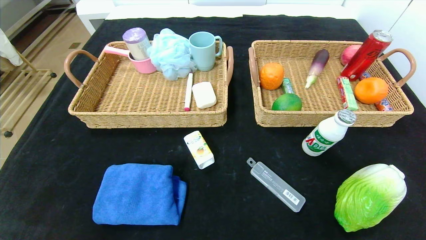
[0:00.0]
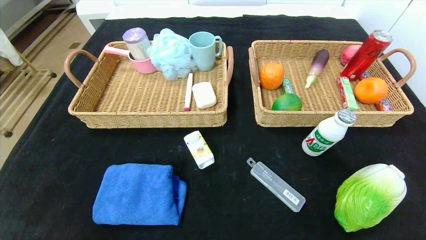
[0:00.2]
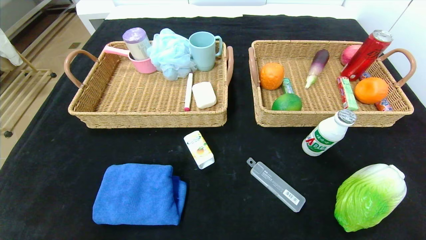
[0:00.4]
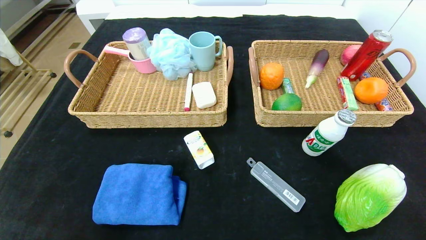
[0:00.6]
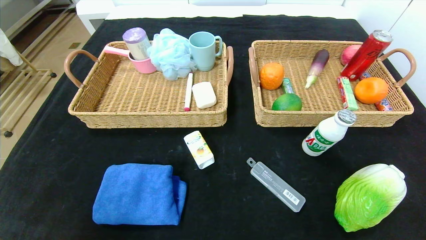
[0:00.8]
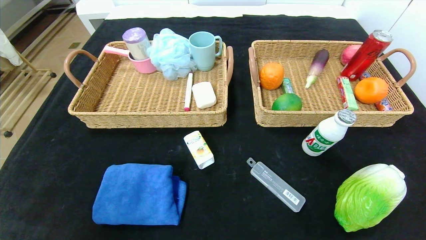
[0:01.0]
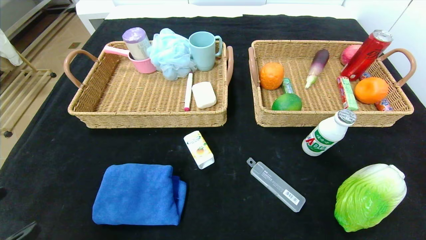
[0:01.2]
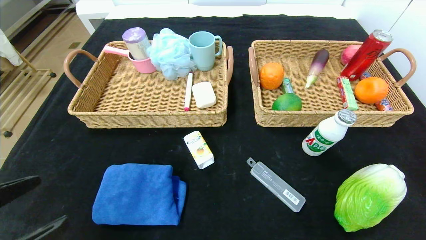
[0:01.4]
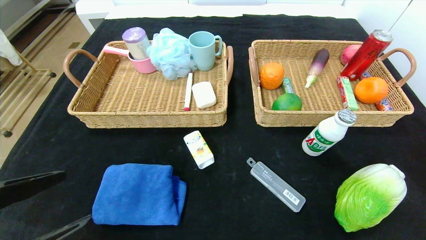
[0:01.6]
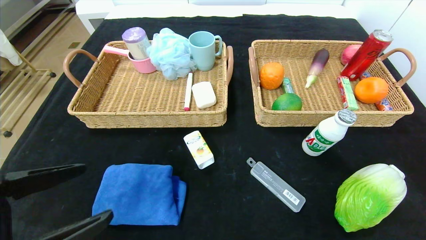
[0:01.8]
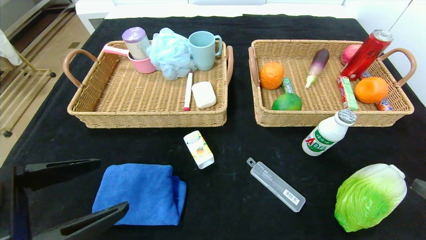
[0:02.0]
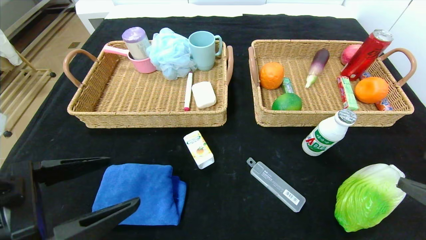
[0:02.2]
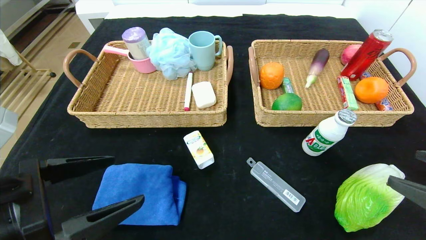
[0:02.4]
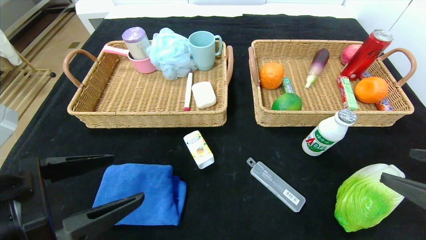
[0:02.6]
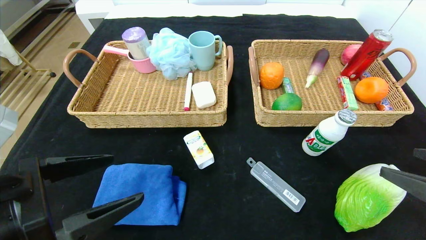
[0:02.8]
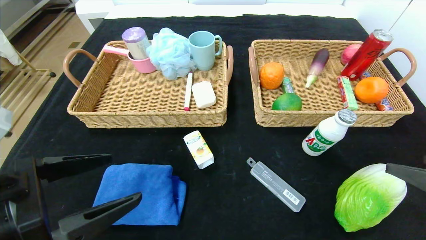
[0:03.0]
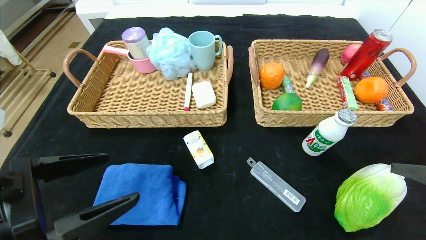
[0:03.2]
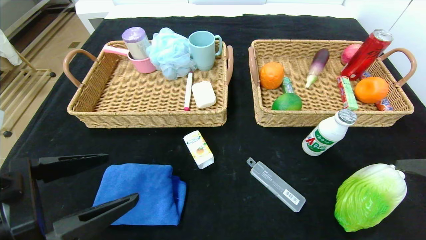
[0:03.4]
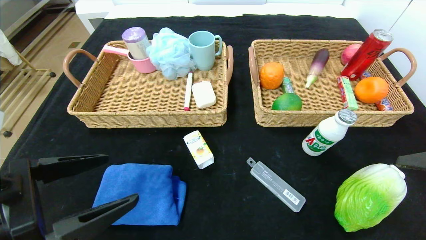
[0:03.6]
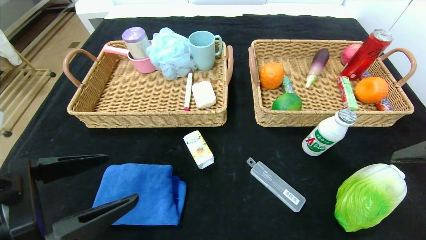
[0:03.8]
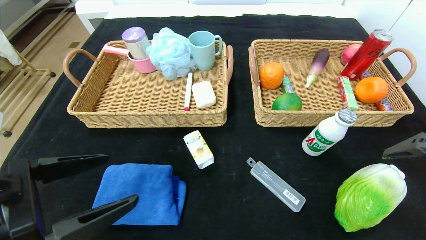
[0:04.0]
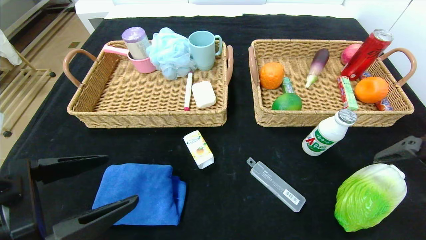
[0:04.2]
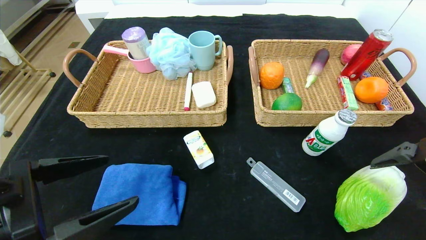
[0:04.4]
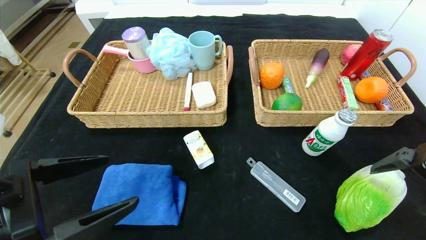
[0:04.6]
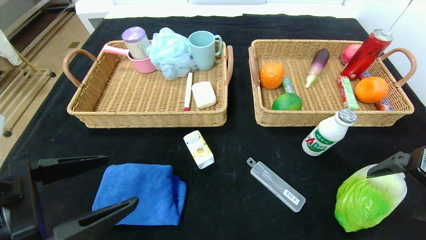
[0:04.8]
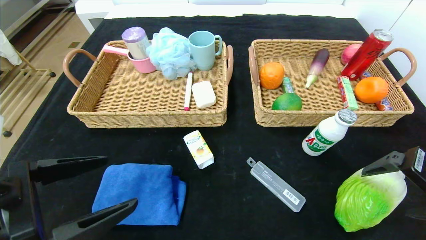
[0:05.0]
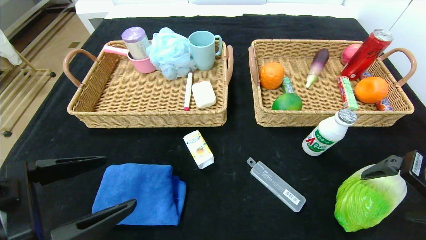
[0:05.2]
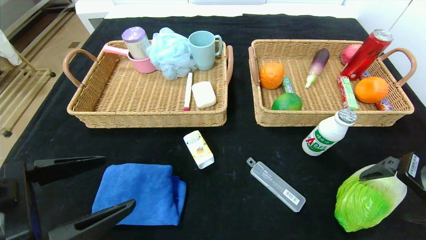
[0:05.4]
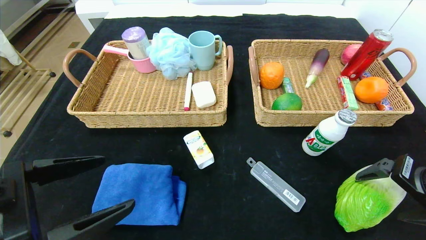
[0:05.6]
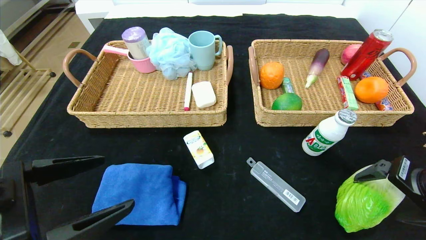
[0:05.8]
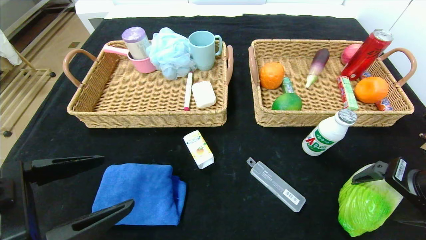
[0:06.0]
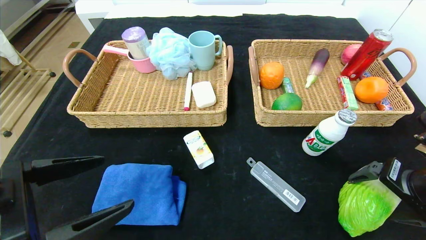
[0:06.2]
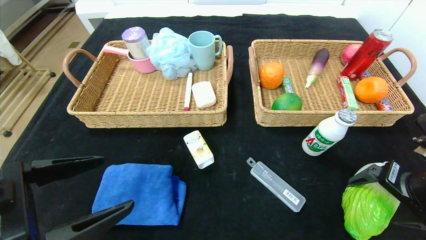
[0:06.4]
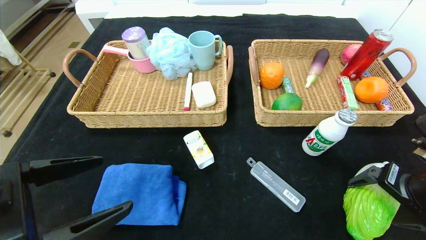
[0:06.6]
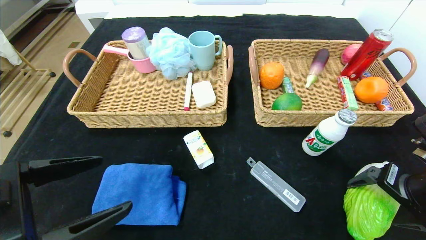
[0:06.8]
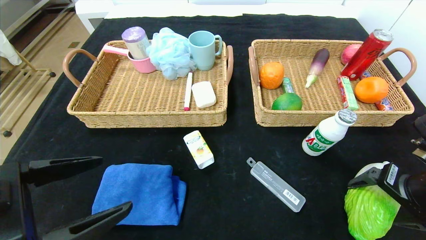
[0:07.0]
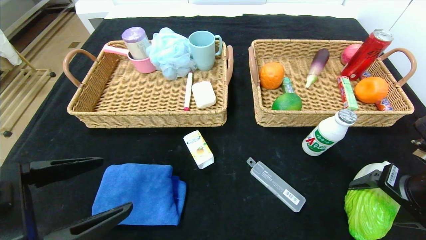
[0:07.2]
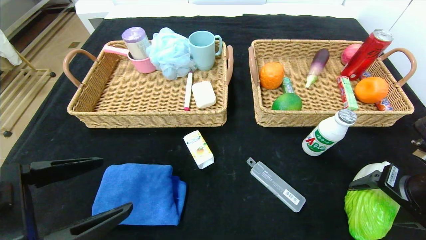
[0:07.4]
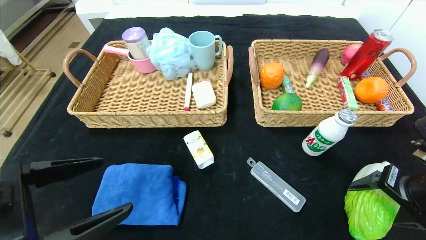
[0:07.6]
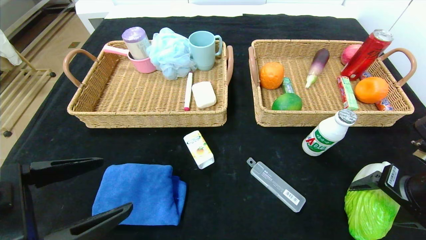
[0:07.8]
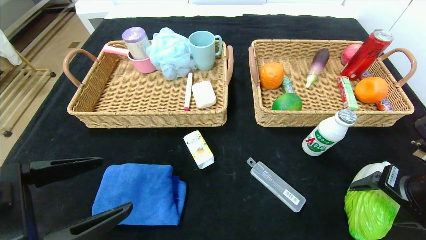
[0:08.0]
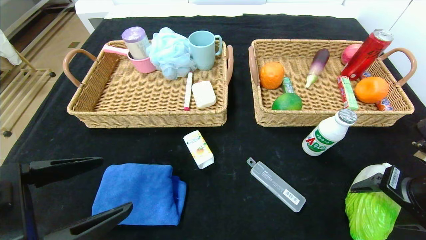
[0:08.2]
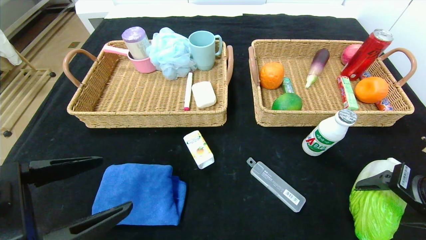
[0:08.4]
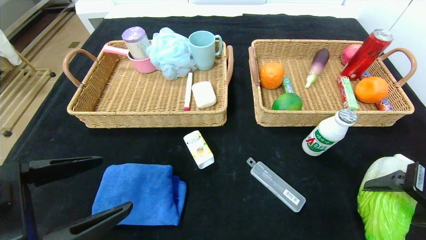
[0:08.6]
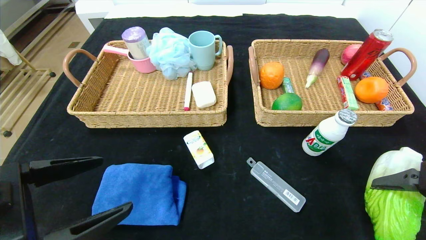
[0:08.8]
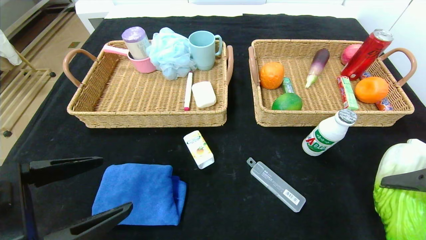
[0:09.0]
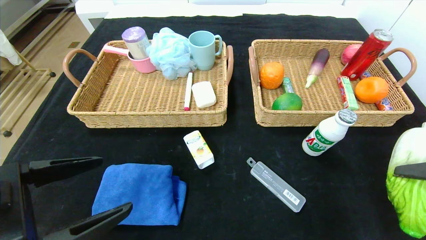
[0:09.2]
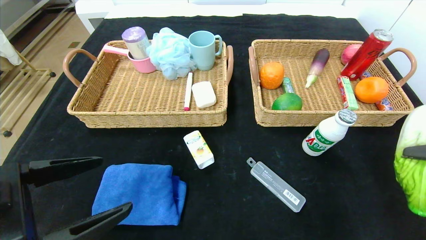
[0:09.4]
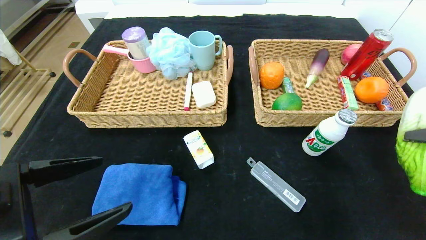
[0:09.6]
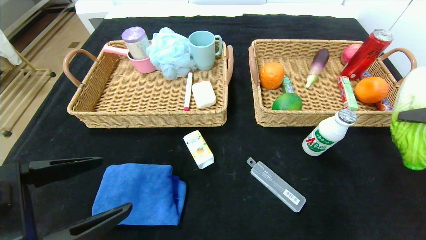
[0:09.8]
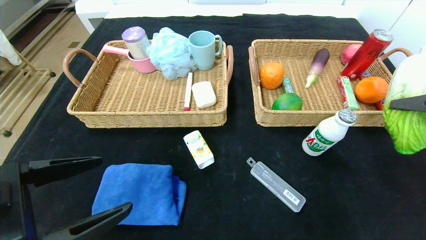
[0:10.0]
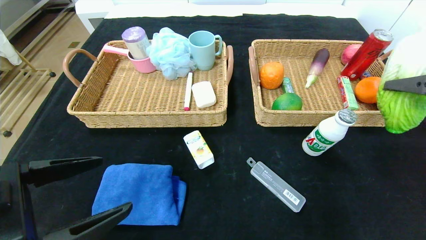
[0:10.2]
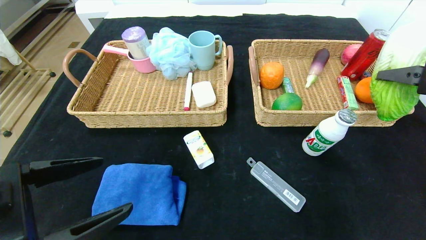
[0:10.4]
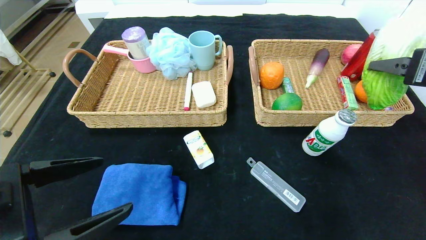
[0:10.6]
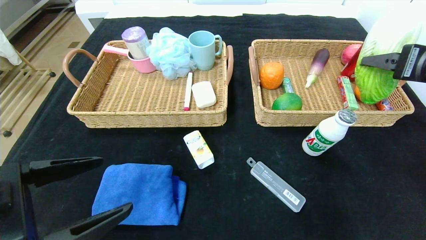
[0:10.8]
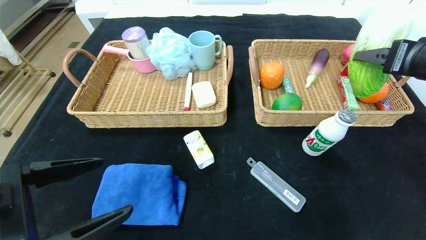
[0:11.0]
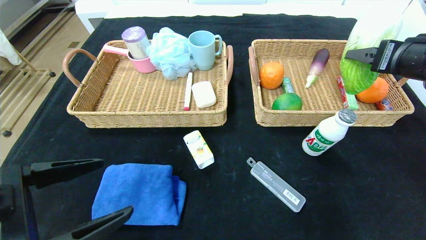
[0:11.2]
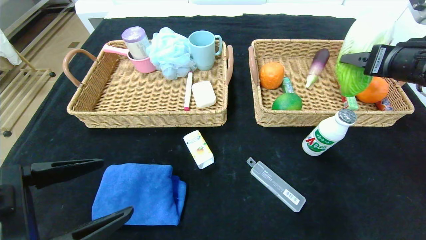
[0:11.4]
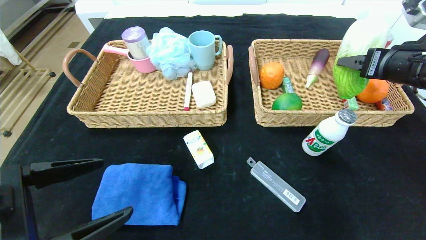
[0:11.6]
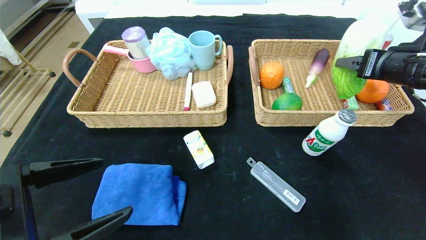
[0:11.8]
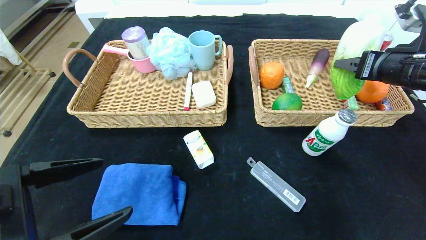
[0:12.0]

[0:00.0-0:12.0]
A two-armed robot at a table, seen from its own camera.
0:00.0 to 0:01.6: The right gripper goes some 20 cm upward; the left gripper moves upward and forward, about 20 cm.
0:01.6 to 0:03.0: The left gripper changes place by some 5 cm, while the right gripper moves forward, approximately 5 cm.
0:03.0 to 0:04.4: The right gripper travels forward by approximately 5 cm.
0:04.4 to 0:06.0: The right gripper shifts by some 5 cm.
0:06.0 to 0:07.6: The grippers move only a little.
0:07.6 to 0:09.0: The right gripper goes about 10 cm backward and upward.
0:09.0 to 0:10.4: The right gripper is displaced upward and forward by some 10 cm.
0:10.4 to 0:12.0: The right gripper goes roughly 10 cm forward.

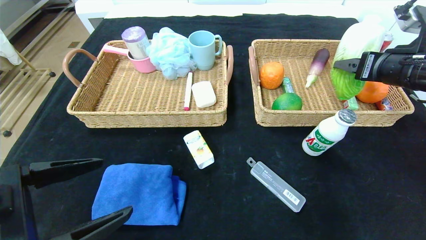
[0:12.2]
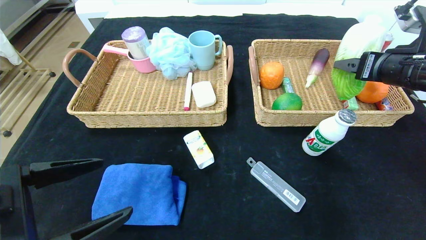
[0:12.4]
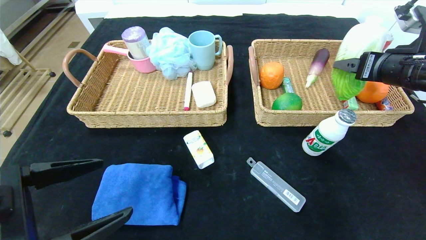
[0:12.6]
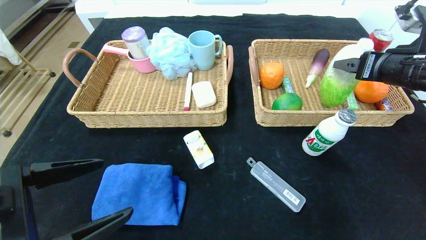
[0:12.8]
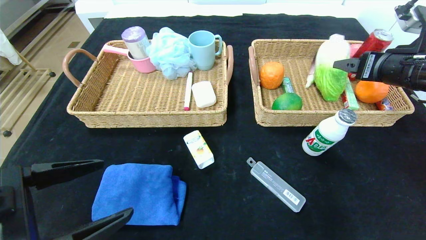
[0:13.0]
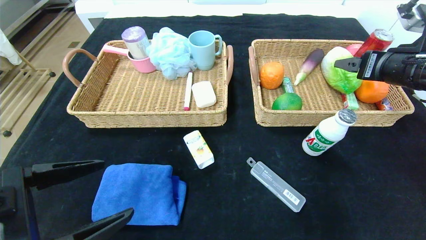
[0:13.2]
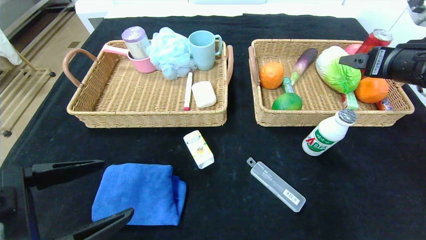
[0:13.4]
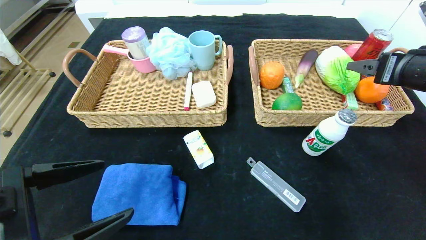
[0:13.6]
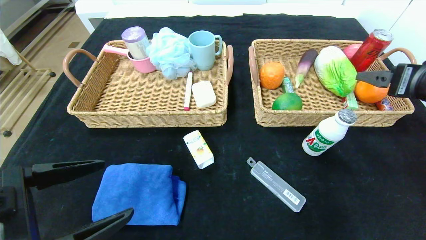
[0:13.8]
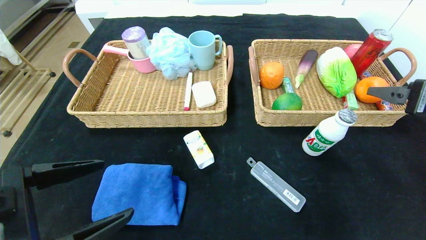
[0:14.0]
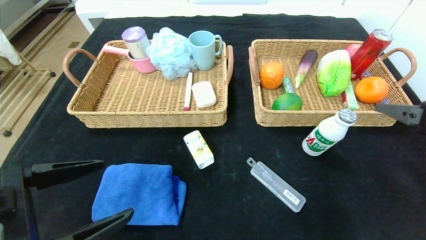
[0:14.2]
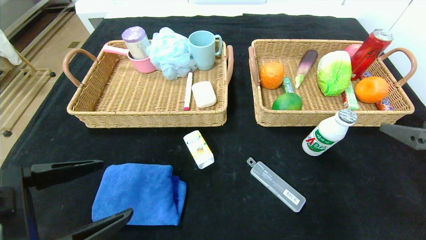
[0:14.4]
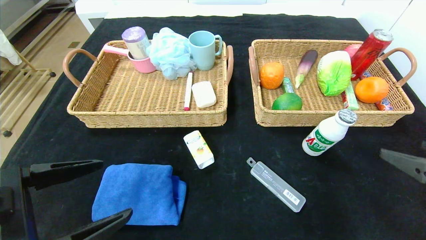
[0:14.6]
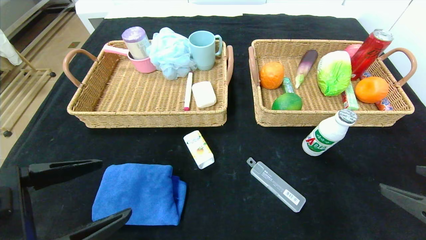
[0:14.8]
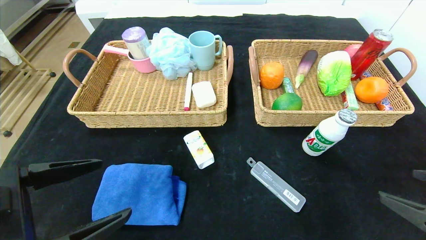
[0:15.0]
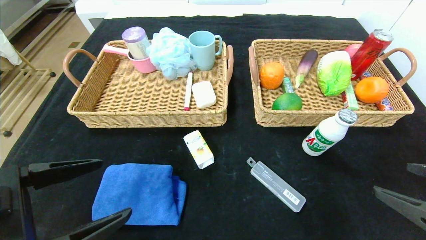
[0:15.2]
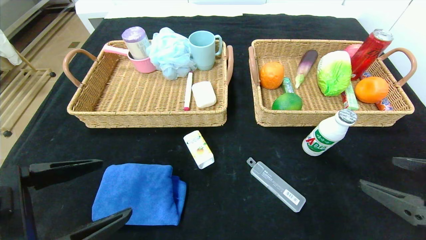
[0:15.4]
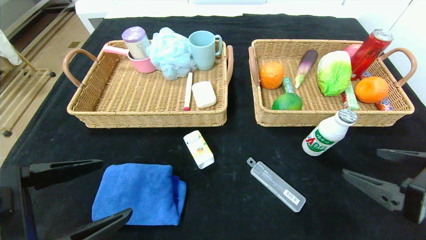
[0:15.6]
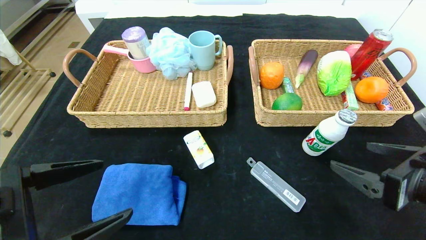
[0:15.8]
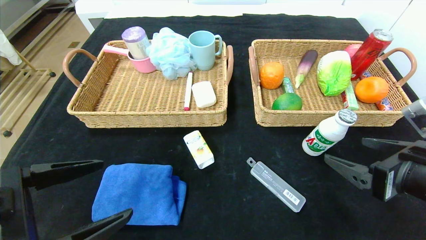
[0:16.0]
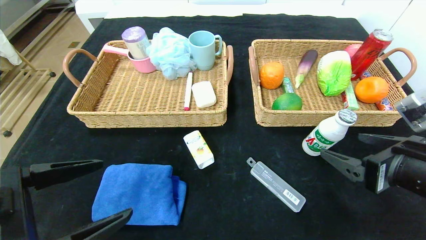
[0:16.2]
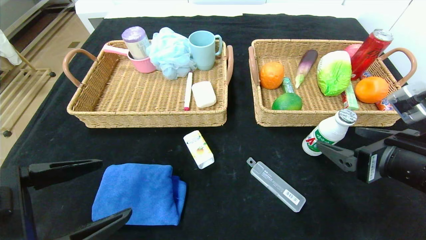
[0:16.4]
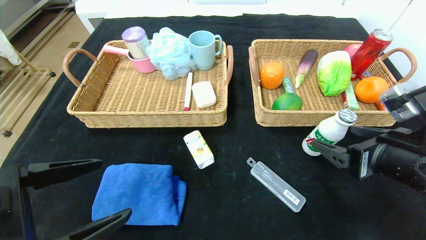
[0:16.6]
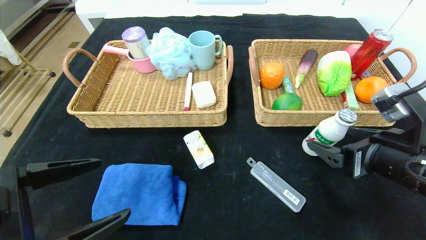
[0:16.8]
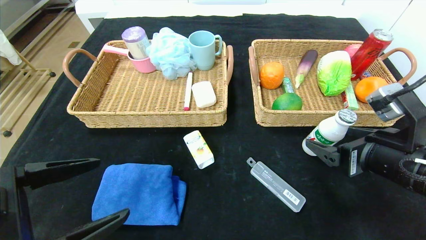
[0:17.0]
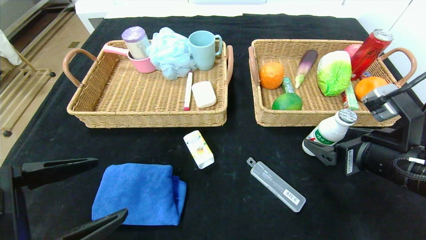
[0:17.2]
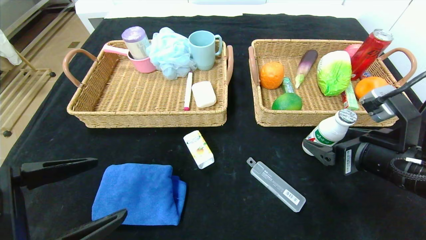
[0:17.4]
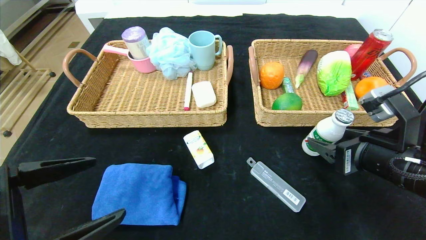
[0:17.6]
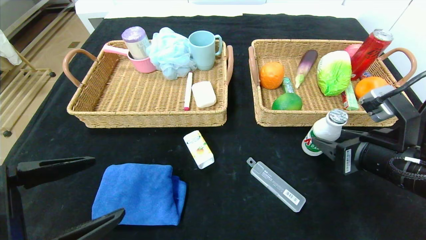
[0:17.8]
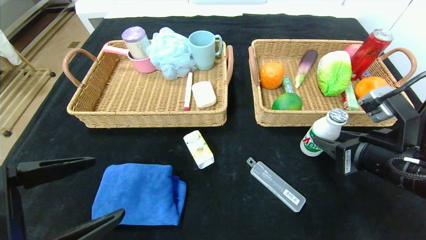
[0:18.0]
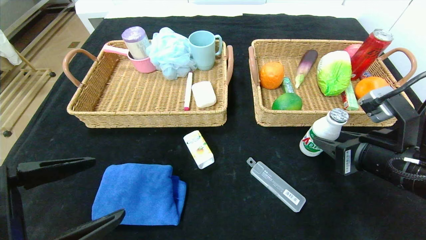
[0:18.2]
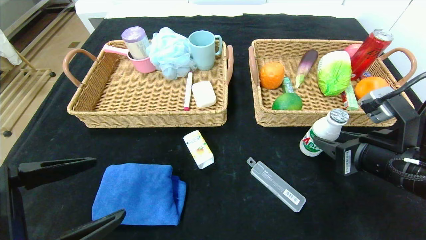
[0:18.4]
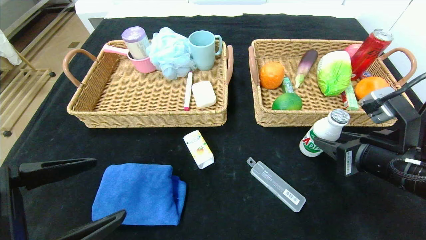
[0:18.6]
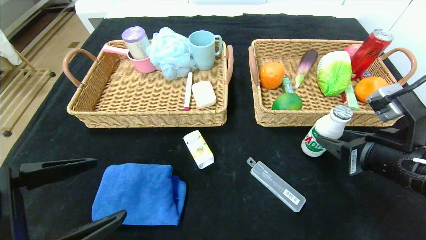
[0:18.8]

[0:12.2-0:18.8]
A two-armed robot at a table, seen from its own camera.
Step, 0:12.2 to 0:14.6: Pick up the chinese cabbage and put it in the right basket.
0:12.2 to 0:13.8: The right gripper heads backward, covering some 5 cm.
0:13.8 to 0:15.4: The right gripper travels backward and downward by approximately 15 cm.
0:15.4 to 0:17.2: The right gripper shifts some 10 cm forward and to the left.
0:17.2 to 0:18.8: The right gripper closes its fingers.
